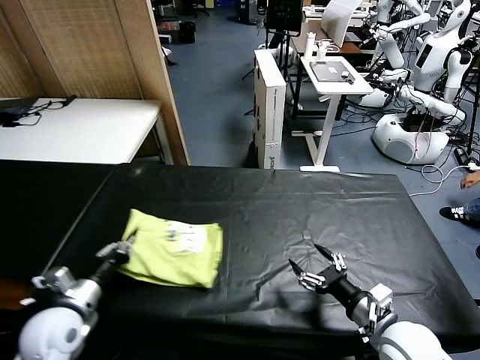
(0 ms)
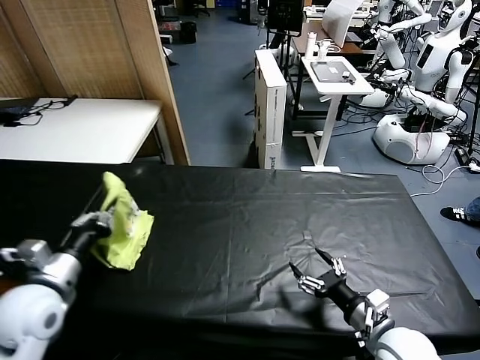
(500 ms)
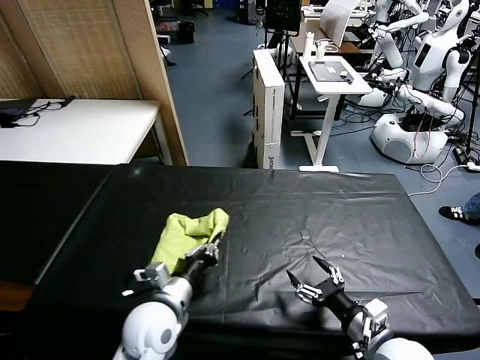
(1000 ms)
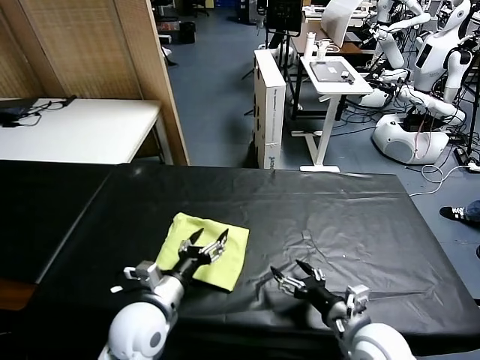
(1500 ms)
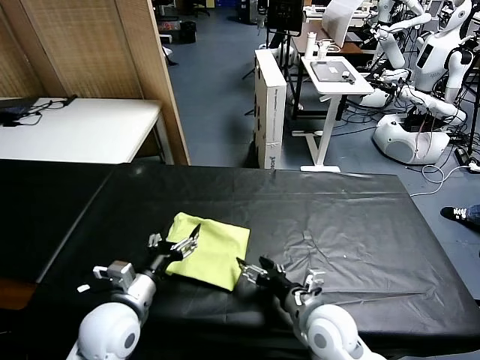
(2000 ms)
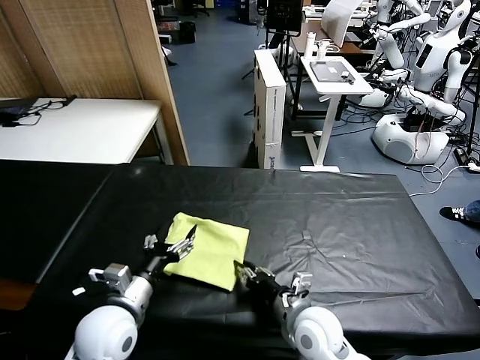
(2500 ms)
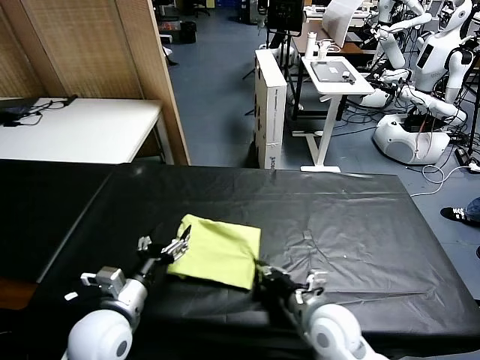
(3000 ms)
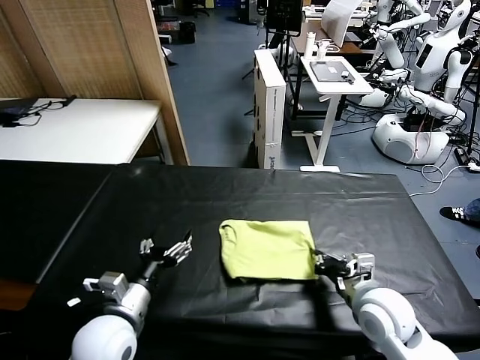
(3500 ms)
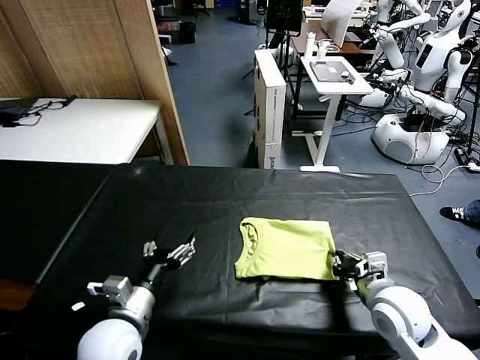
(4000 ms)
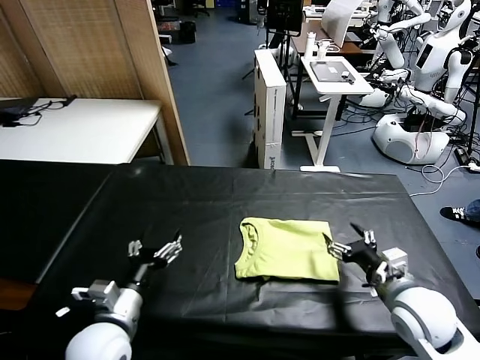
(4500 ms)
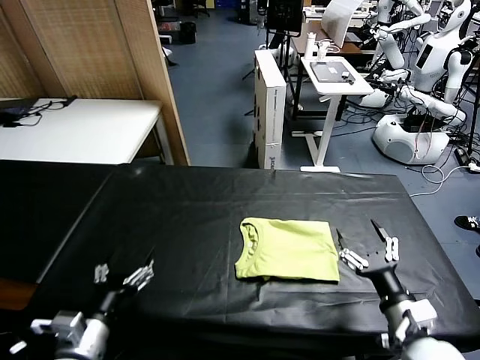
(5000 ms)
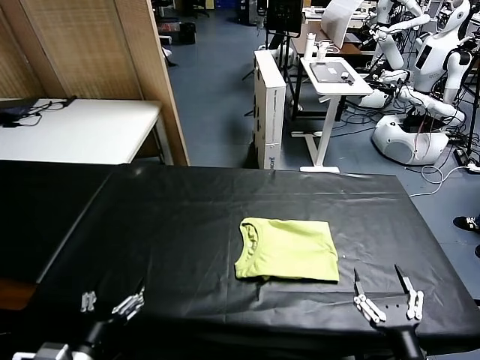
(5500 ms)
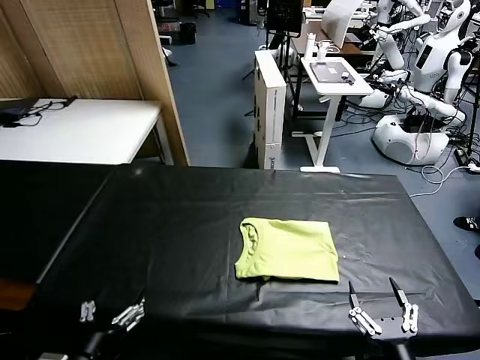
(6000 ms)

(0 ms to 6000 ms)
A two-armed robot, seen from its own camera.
Task of the whole recording: fold and organize the clothes.
Step, 1500 ms - 4000 ms: Drag the clothes to the center of the table.
0 ms - 2000 ms: The left gripper shifts approximately 10 cm to the right, and opens up; the right gripper shifts roughly 10 cm to the left.
2000 ms - 4000 ms: The right gripper goes some 15 cm to the right and upward, and closes up.
4000 ms - 6000 ms: The left gripper moves backward and to the left, roughly 15 cm. Meanwhile the right gripper travels backward by about 20 cm, and opens.
